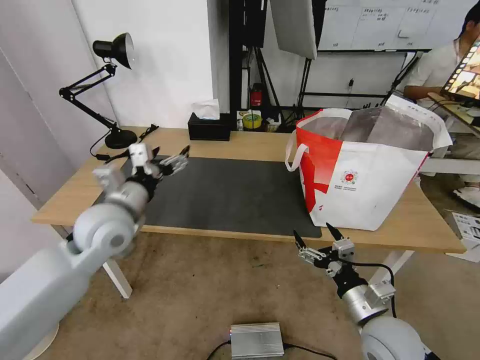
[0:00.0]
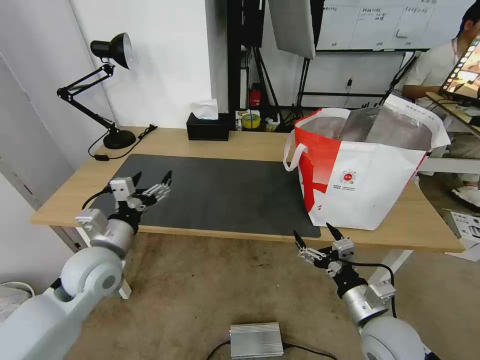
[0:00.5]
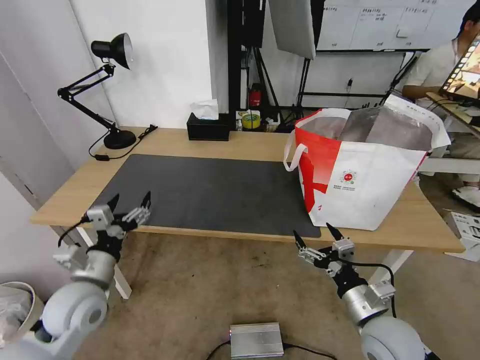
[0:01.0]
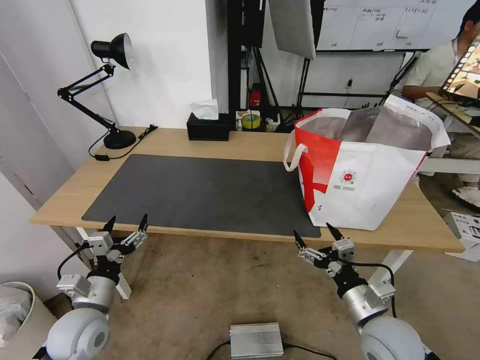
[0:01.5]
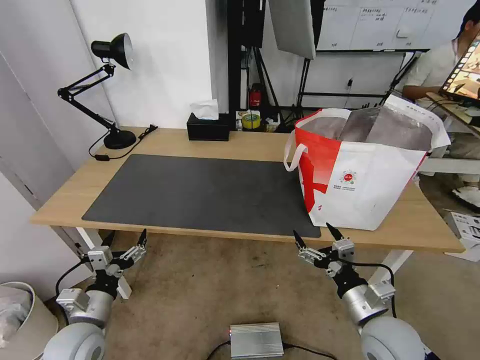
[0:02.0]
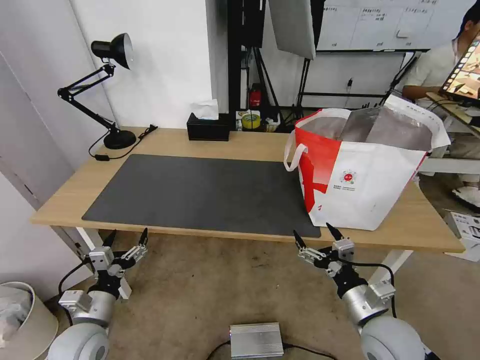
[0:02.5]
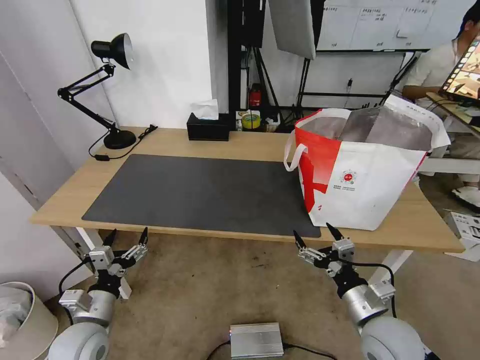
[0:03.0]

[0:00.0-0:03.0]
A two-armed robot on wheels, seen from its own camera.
Task of the whole recording: Pick up the trash from the table and place it into the takeout bag.
0:00.0 to 0:01.5: The left gripper heads downward and backward, covering approximately 20 cm.
0:01.5 to 0:03.0: There are only small adjustments of the grippers.

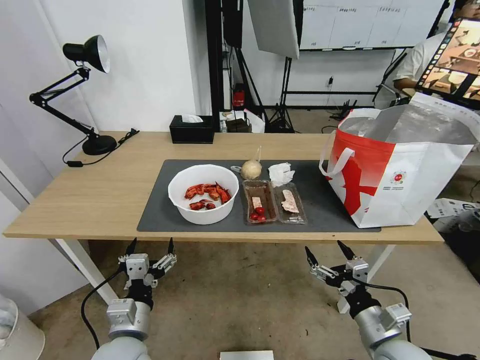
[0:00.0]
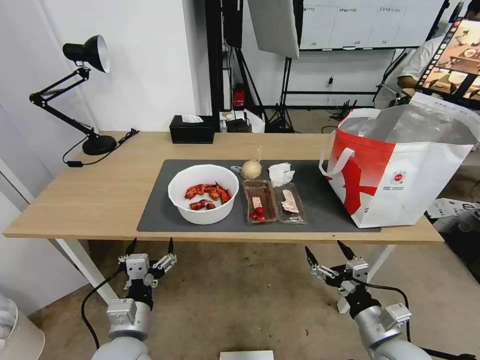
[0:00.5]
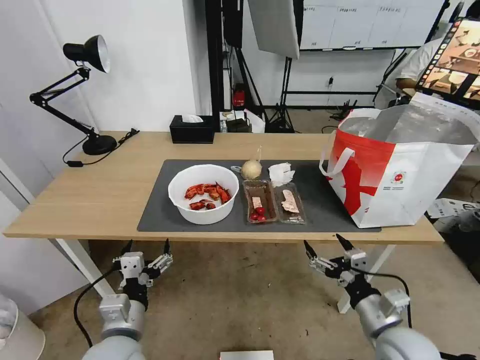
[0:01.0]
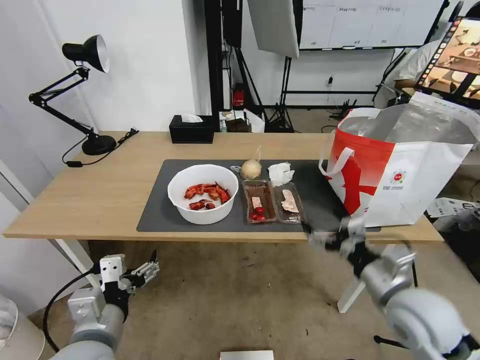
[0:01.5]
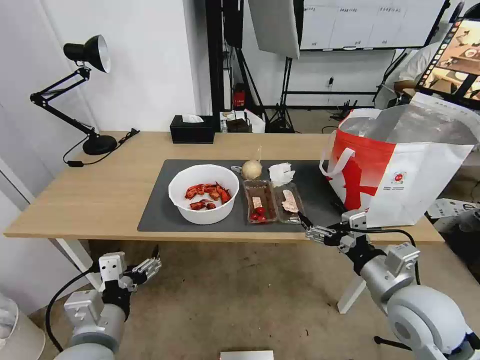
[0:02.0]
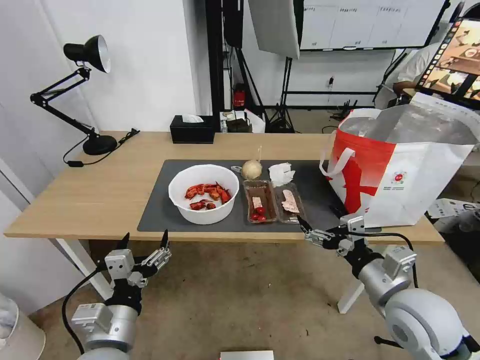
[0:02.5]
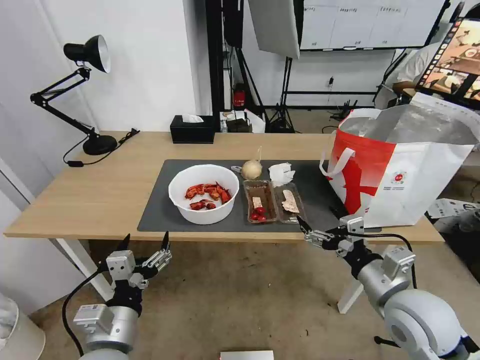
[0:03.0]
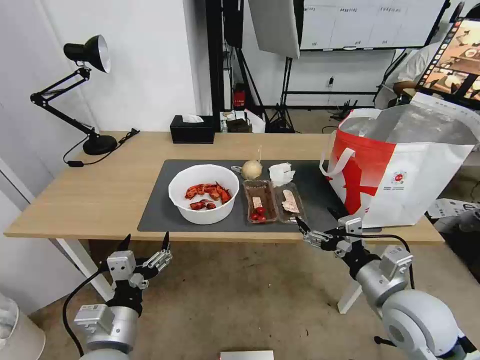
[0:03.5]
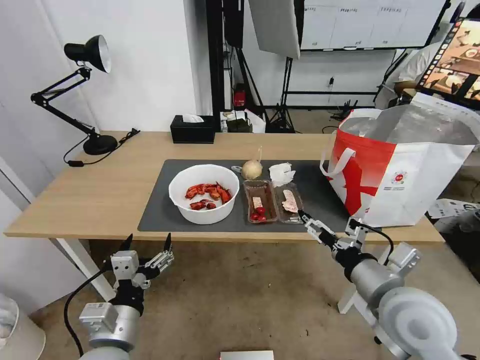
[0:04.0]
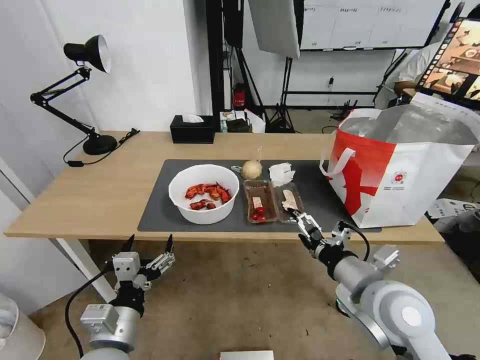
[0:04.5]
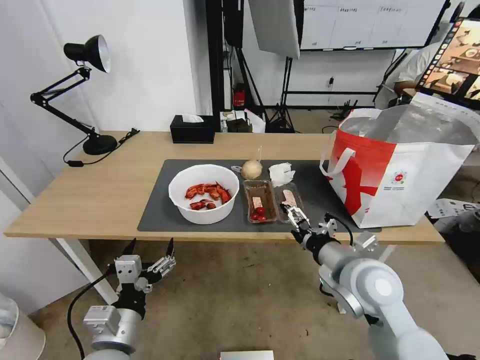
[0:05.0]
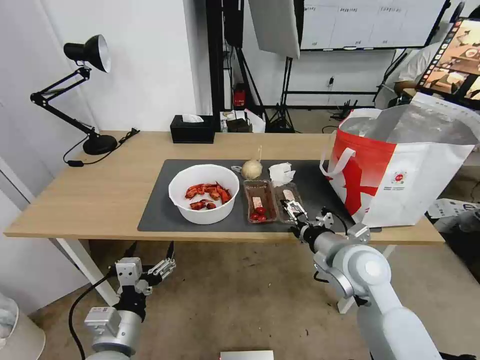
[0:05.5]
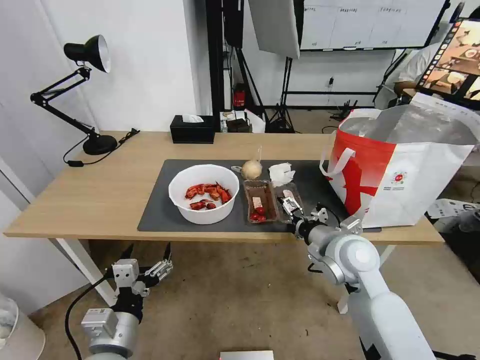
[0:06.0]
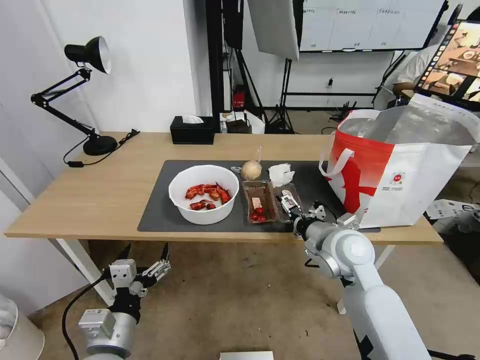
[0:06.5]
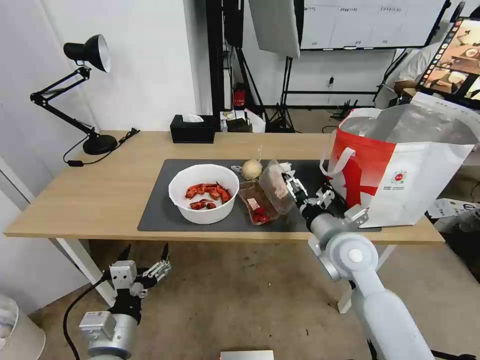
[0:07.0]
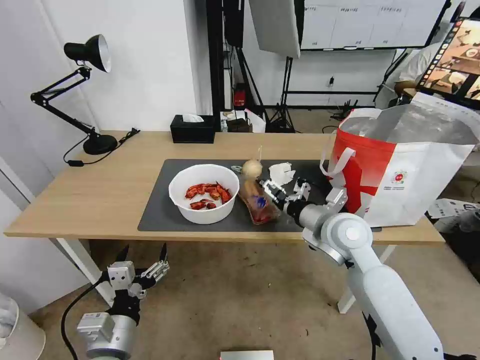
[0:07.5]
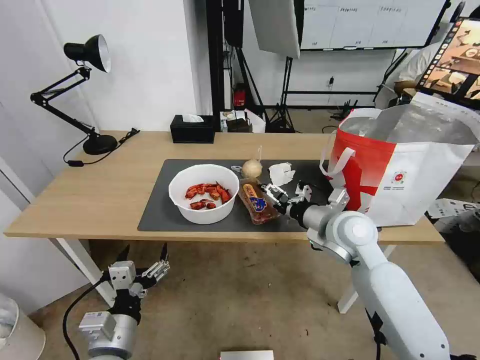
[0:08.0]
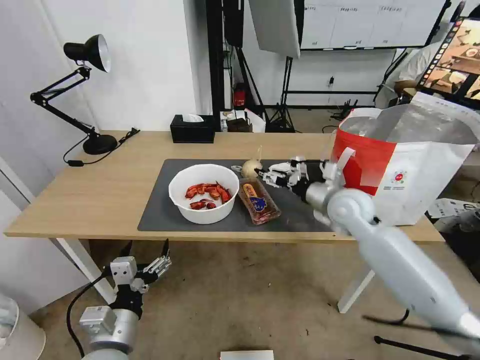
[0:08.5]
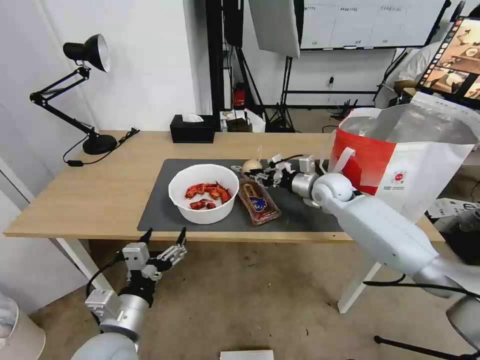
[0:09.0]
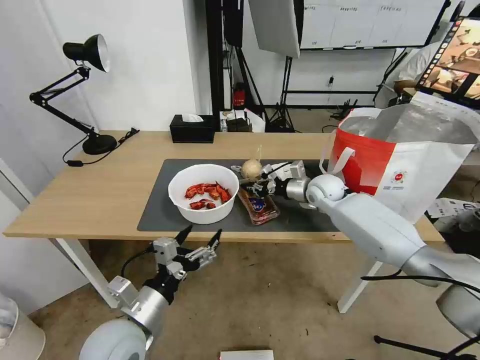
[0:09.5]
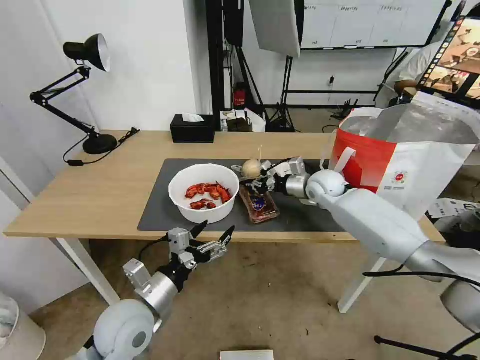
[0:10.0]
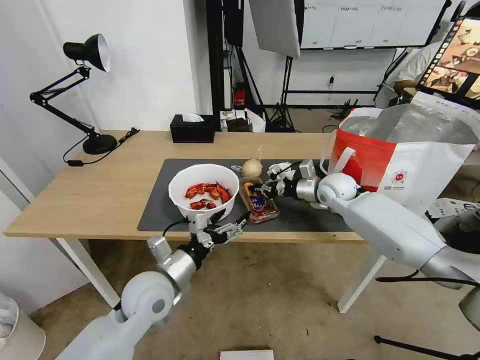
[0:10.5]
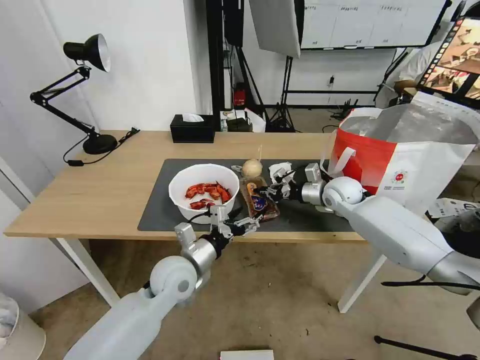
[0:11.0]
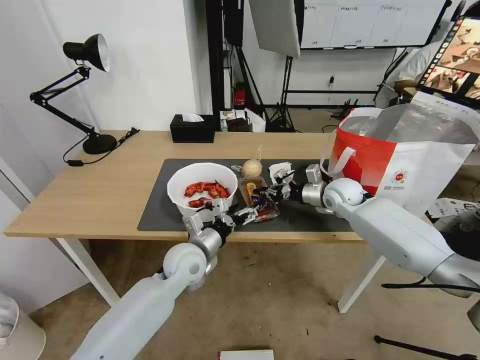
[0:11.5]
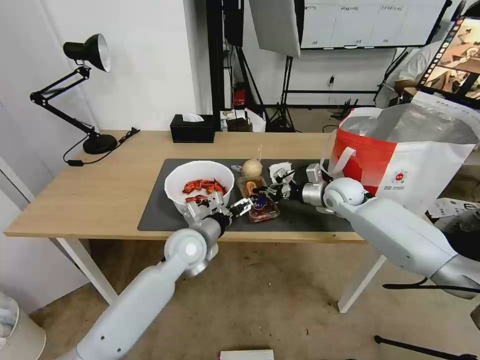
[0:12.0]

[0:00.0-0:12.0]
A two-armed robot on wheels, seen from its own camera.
Task of the whole recording: Pick up the trash from the table and place it into the takeout bag.
0:04.0 to 0:06.0: The right gripper travels forward by some 10 cm.
0:08.0 to 0:10.0: The left gripper heads forward, covering some 10 cm; the right gripper goes about 20 cm forward, and closes.
0:10.0 to 0:12.0: The right gripper shifts by approximately 5 cm; the left gripper travels forward and to the right by roughly 20 cm.

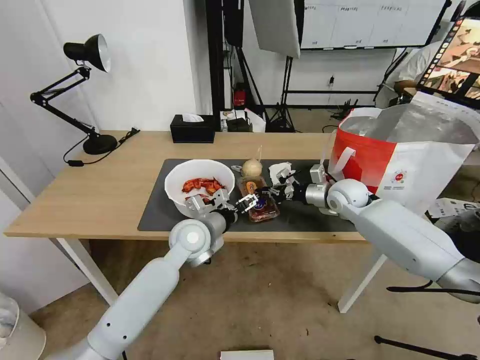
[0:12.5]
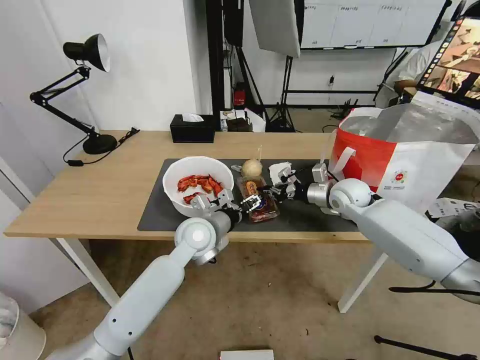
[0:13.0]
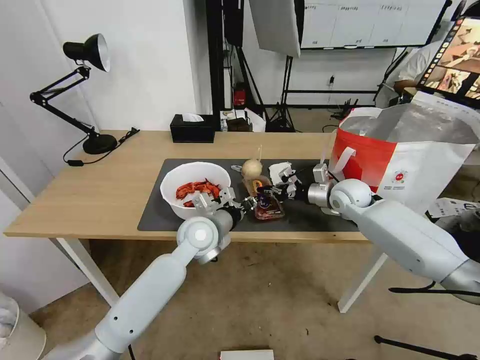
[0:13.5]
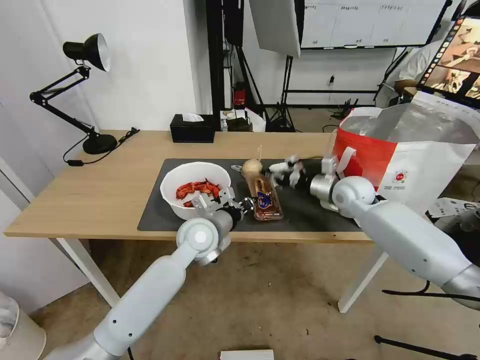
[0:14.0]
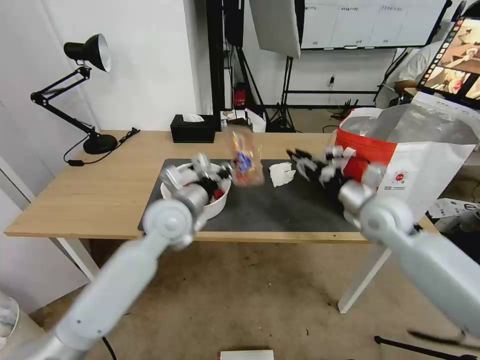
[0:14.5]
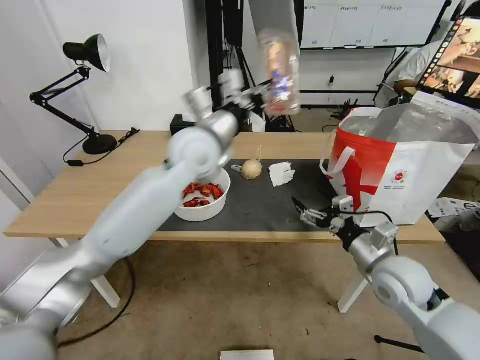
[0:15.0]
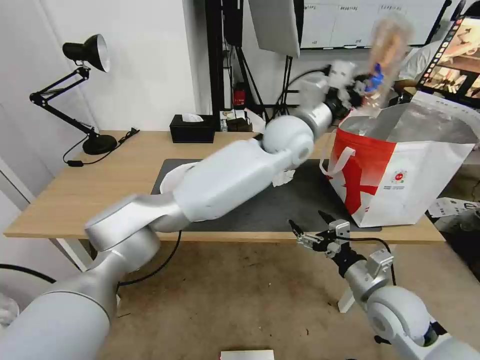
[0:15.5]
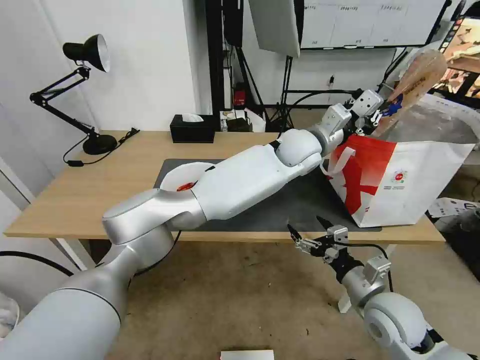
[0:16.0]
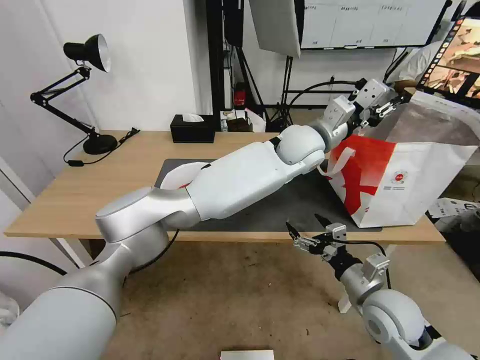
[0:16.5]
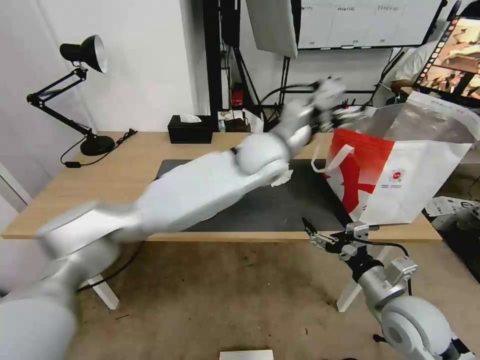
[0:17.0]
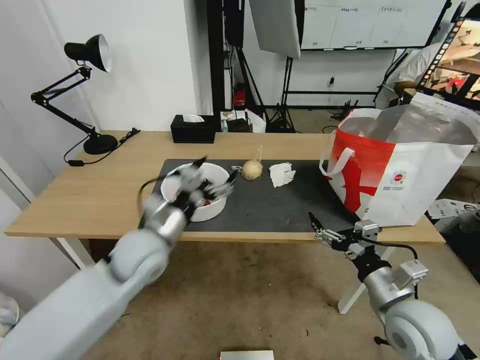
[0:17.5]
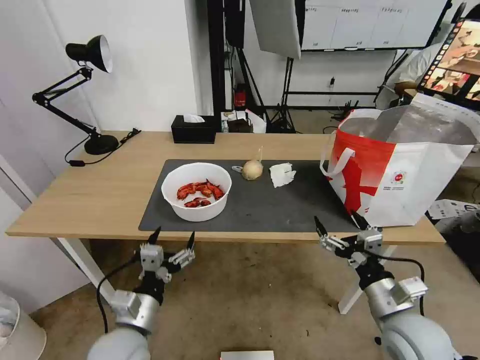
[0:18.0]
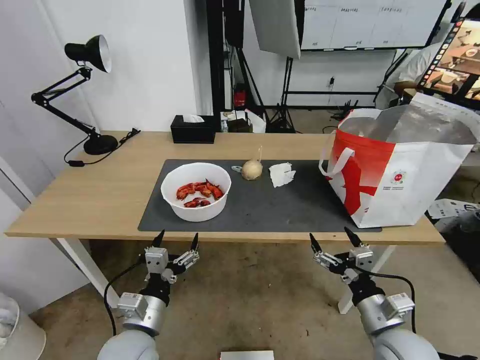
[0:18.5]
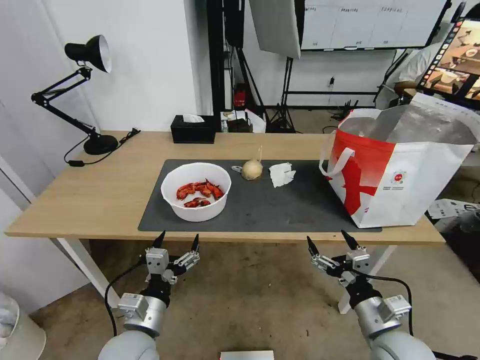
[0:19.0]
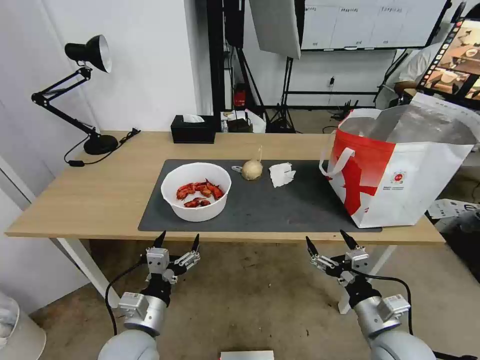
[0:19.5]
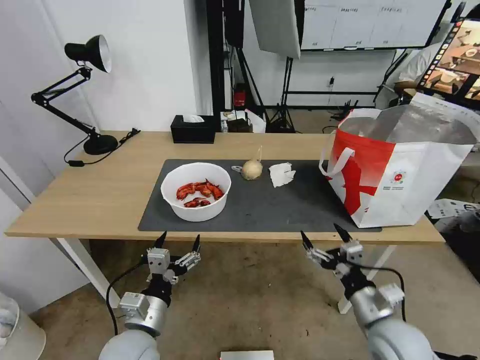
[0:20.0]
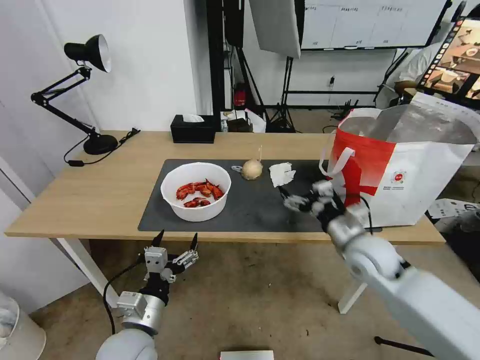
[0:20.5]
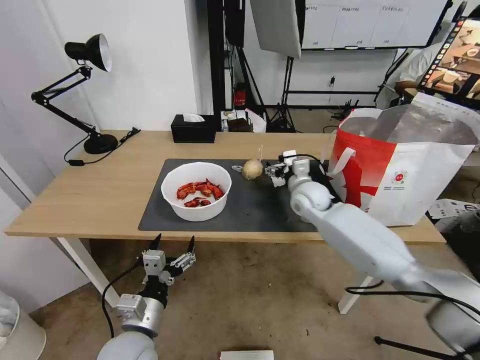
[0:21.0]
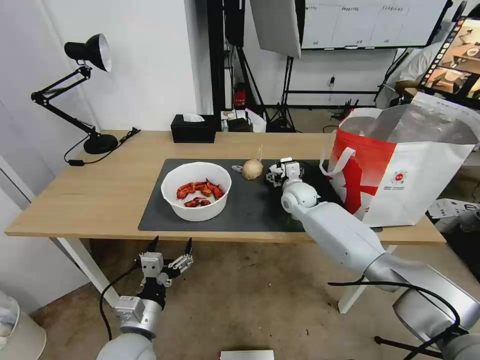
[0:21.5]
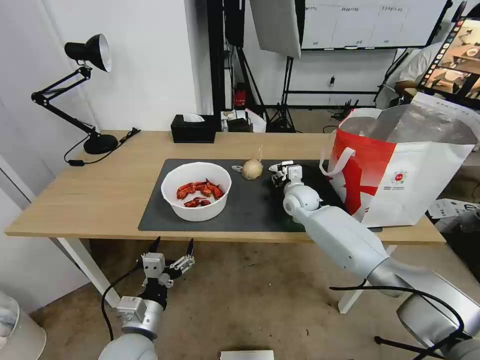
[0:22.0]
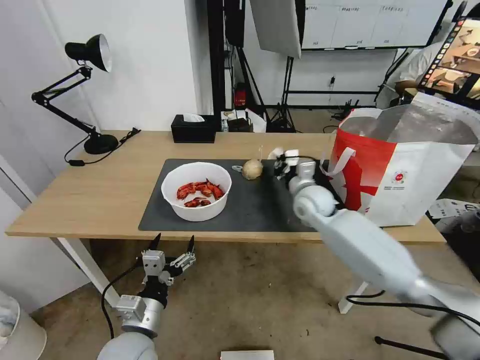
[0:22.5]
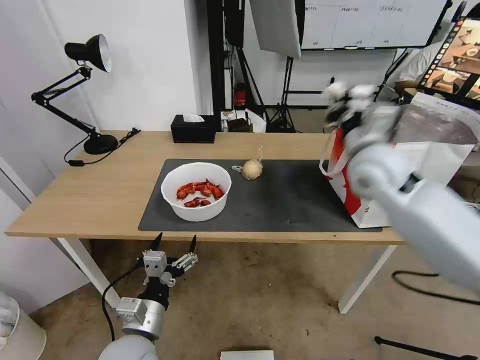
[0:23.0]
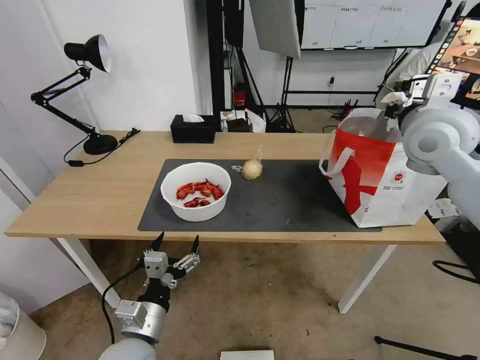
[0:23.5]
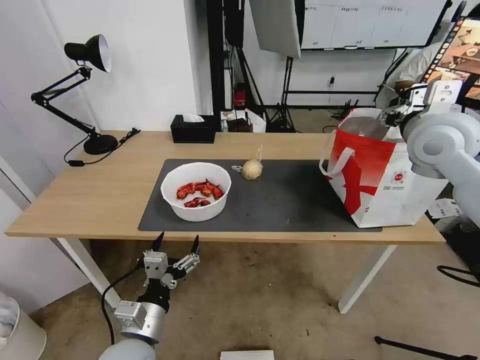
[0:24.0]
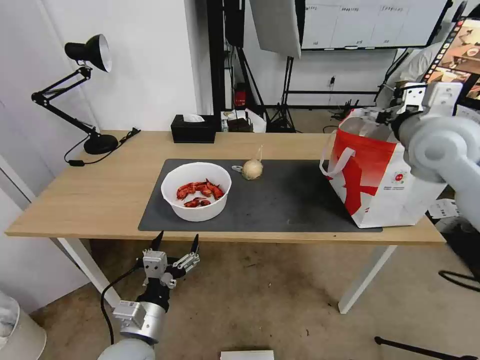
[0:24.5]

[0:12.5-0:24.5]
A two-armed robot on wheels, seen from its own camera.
Task of the whole recording: Pick up the trash from the table and place it into the takeout bag.
0:12.5 to 0:14.5: The right gripper is displaced backward by roughly 15 cm, and opens its fingers; the left gripper is displaced upward by some 10 cm, and closes.
0:14.5 to 0:16.5: The left gripper is displaced to the right by approximately 30 cm, and opens its fingers; the right gripper moves backward and downward, some 15 cm, and opens.
0:16.5 to 0:18.5: The left gripper moves to the left, backward and downward, about 50 cm, and opens up, while the right gripper is displaced backward by some 5 cm.
0:18.5 to 0:20.5: The right gripper heads forward, covering some 20 cm.
0:20.5 to 0:22.5: The right gripper moves forward and to the left, roughly 15 cm, and closes its fingers.
0:22.5 to 0:24.5: The right gripper shifts some 30 cm upward and to the right, and opens its fingers.
